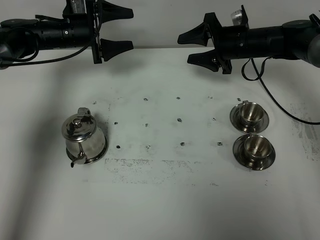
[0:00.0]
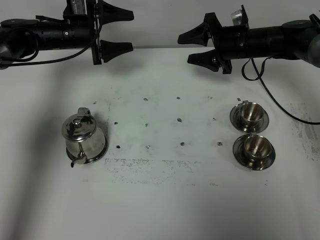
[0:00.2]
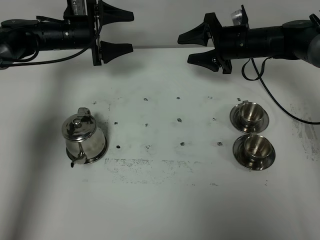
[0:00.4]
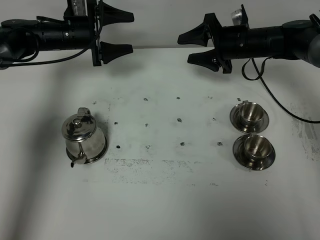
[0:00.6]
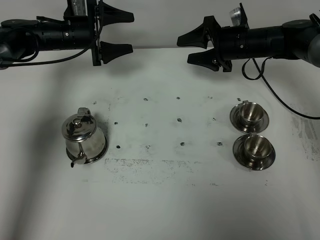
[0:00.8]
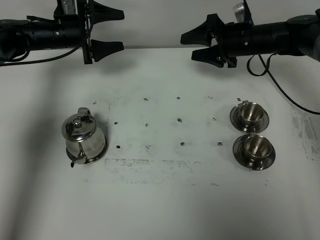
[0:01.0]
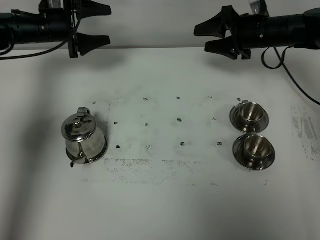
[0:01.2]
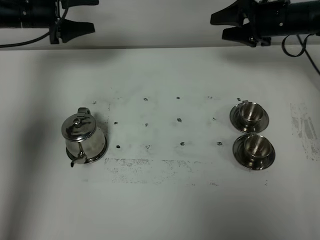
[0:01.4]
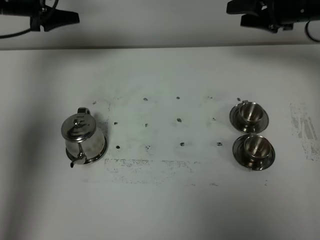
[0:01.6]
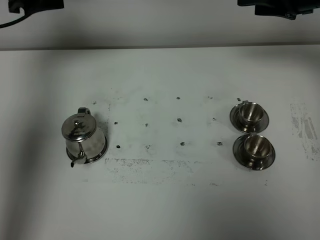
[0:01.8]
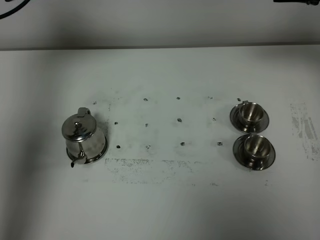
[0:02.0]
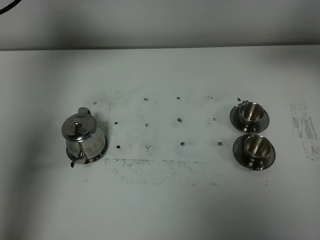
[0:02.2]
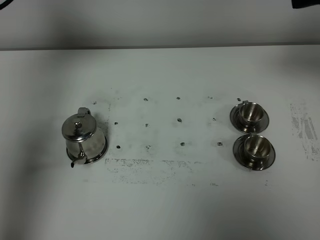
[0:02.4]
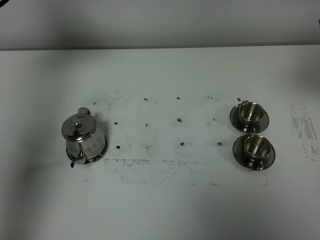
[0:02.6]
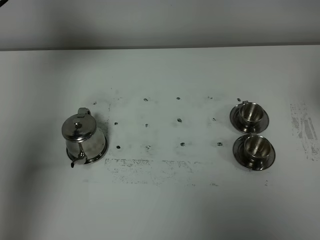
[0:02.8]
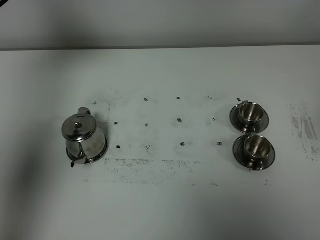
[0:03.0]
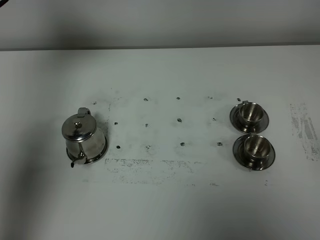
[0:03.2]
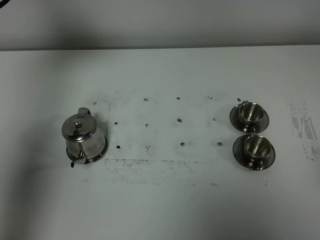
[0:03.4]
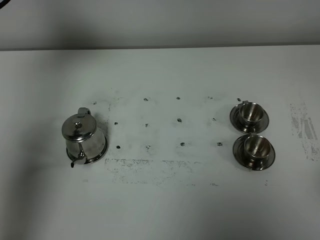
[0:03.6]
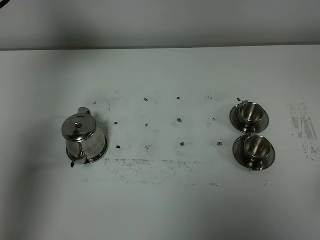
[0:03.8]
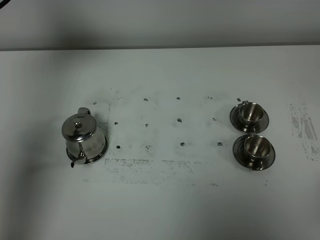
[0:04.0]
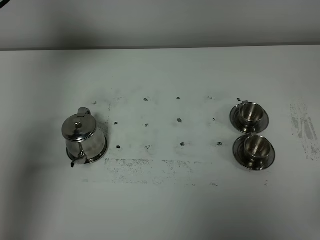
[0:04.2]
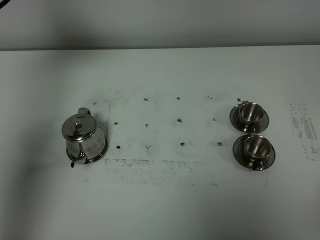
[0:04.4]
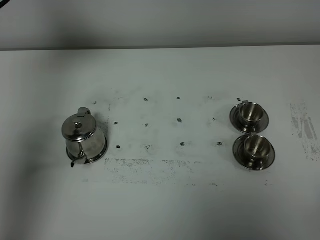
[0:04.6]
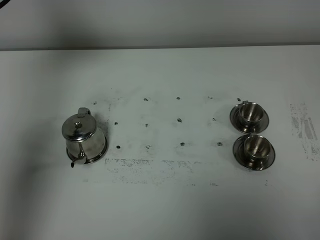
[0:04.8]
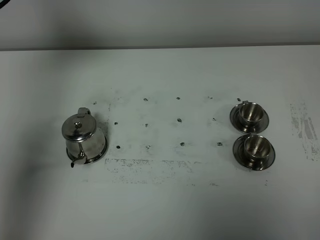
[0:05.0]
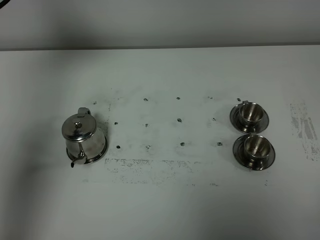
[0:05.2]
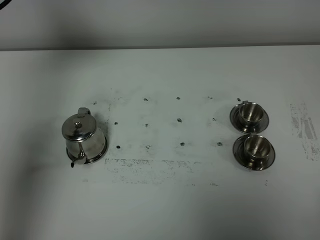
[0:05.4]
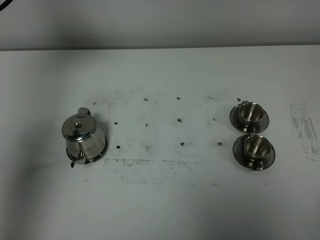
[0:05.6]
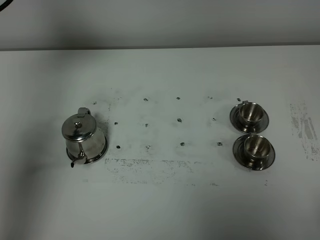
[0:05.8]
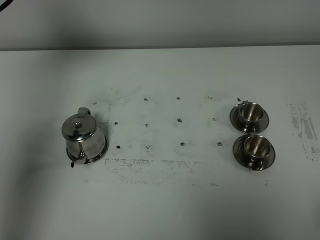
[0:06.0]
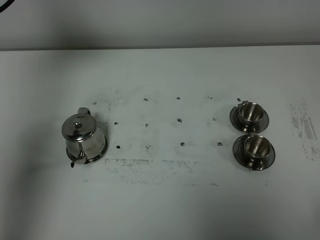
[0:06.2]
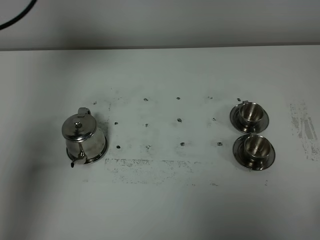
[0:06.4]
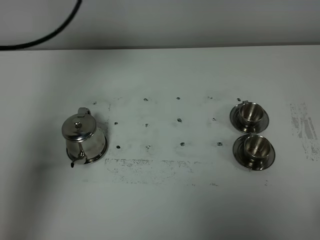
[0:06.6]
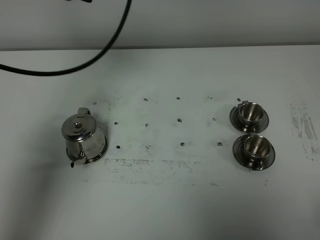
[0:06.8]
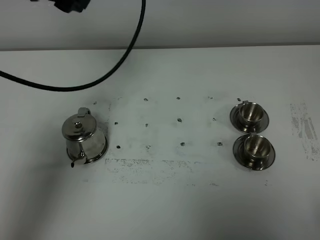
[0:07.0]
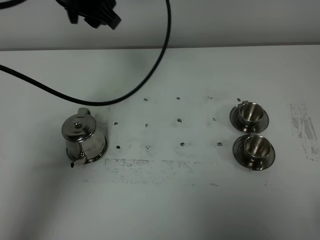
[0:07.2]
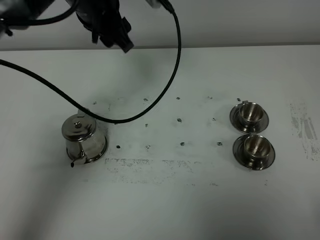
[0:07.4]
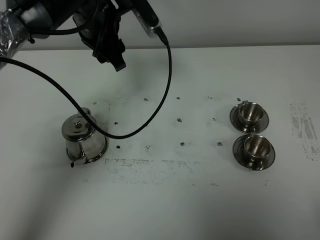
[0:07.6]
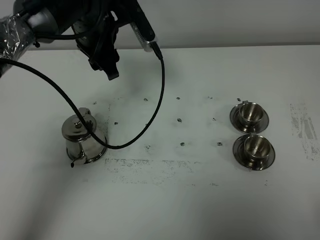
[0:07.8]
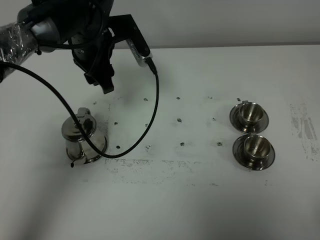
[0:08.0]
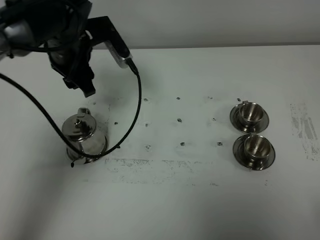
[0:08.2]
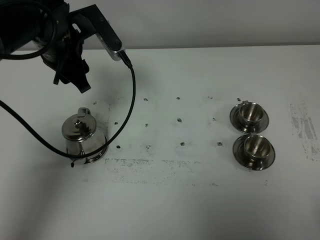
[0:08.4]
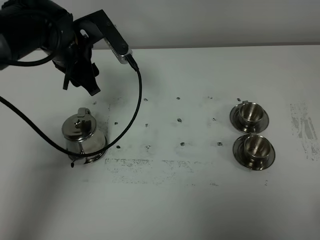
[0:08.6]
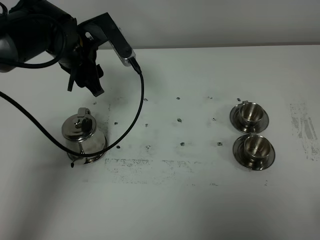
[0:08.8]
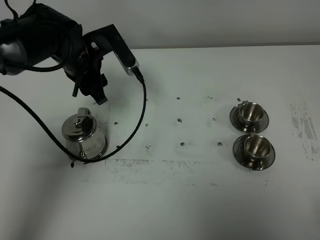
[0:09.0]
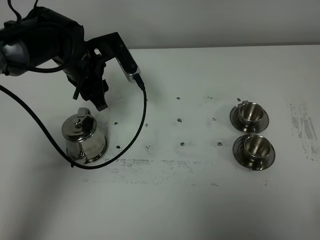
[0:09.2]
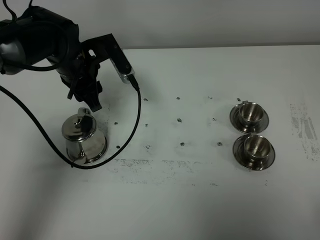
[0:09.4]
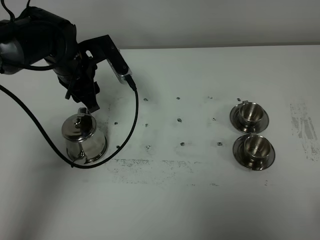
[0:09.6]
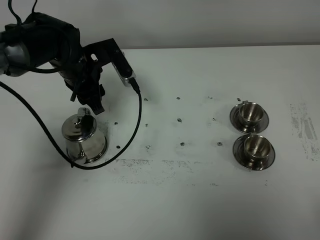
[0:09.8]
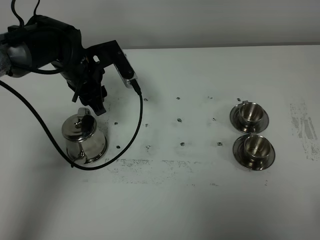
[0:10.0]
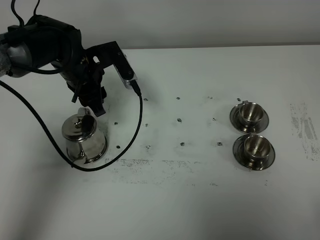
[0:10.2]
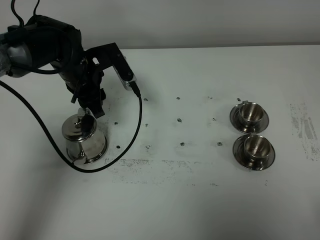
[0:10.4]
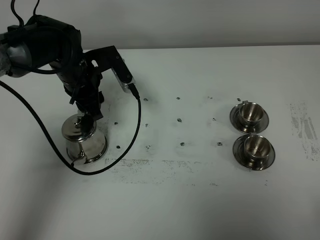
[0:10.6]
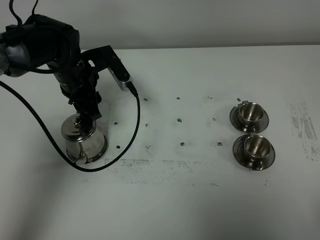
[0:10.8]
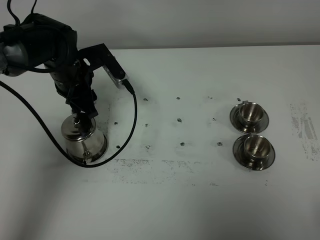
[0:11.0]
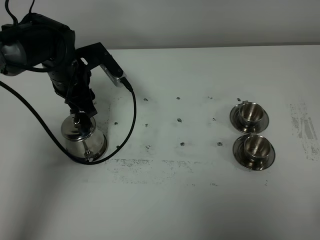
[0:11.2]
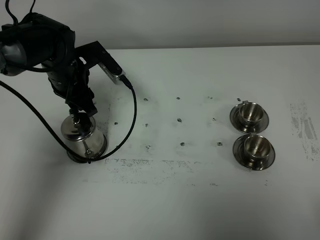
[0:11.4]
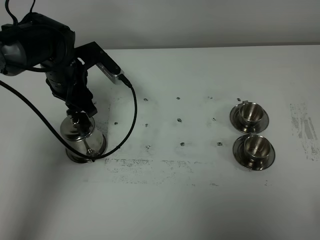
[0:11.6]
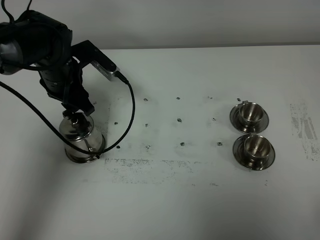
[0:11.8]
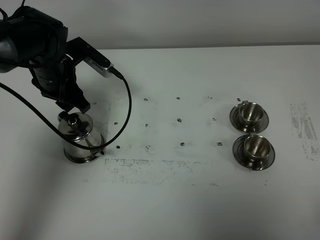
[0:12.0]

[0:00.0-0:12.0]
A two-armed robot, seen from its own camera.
Task of the whole recording: grasp the stainless steel teapot and pour the tea into the two stainless steel teacups one by one, put the stainless steel teapot back in its original place.
0:00.0 to 0:01.6: The left gripper moves upward and to the left, about 15 cm. Meanwhile the right gripper heads upward and to the right, covering some 15 cm.
0:01.6 to 0:03.0: The right gripper moves backward, about 35 cm, while the left gripper travels upward and backward by approximately 20 cm.
0:06.0 to 0:07.6: The left gripper moves to the right and downward, approximately 25 cm.
0:07.6 to 0:09.0: The left gripper heads downward, covering some 5 cm.
0:09.0 to 0:10.4: The grippers stay close to where they were, moving slightly.

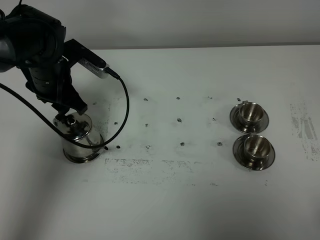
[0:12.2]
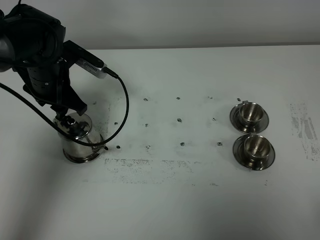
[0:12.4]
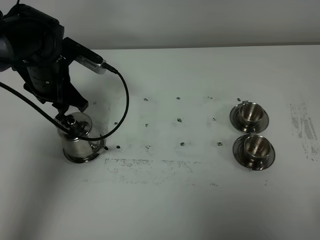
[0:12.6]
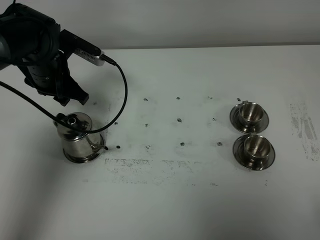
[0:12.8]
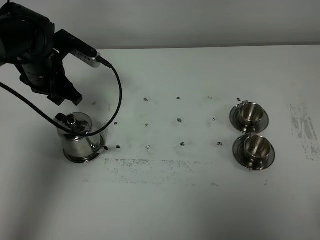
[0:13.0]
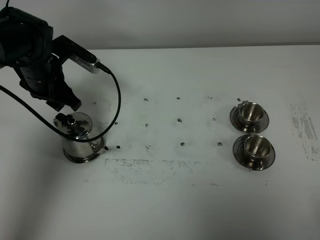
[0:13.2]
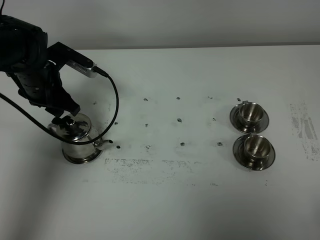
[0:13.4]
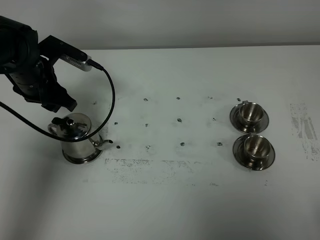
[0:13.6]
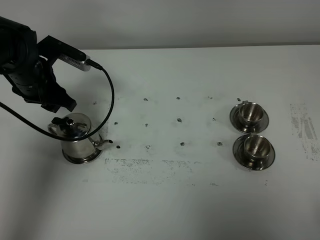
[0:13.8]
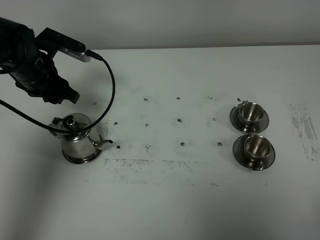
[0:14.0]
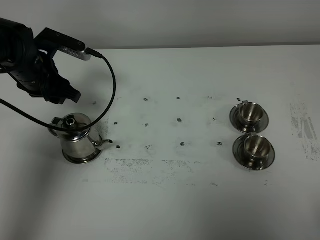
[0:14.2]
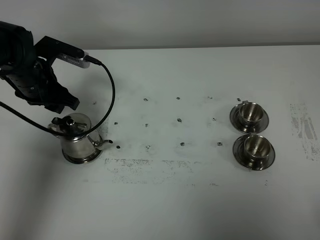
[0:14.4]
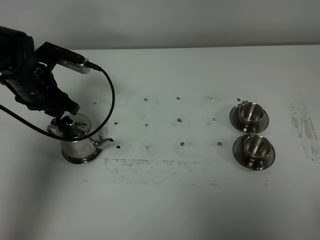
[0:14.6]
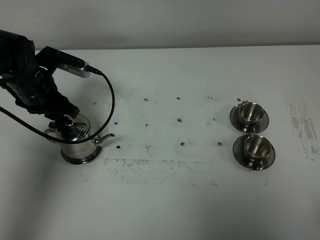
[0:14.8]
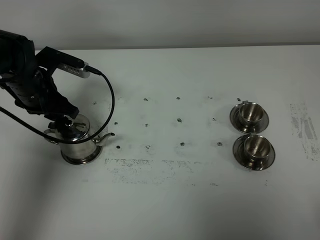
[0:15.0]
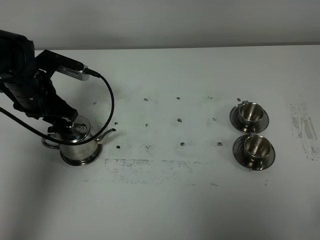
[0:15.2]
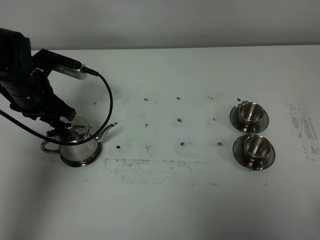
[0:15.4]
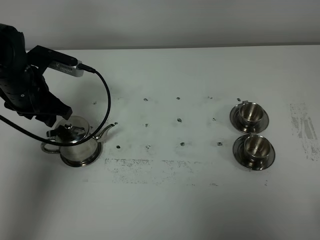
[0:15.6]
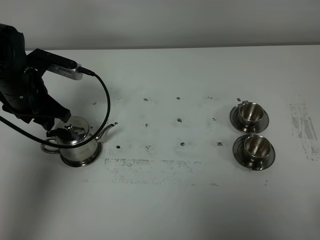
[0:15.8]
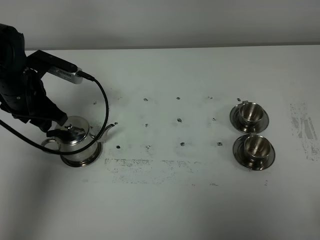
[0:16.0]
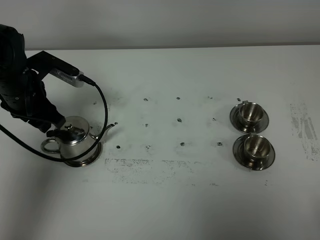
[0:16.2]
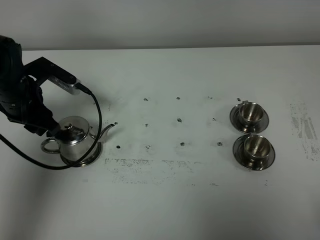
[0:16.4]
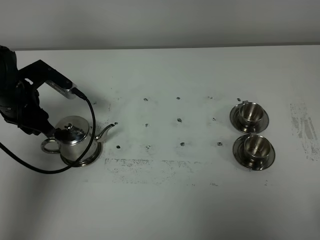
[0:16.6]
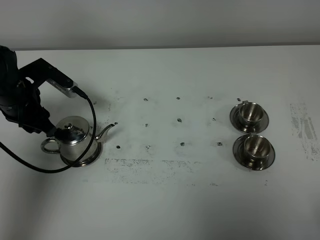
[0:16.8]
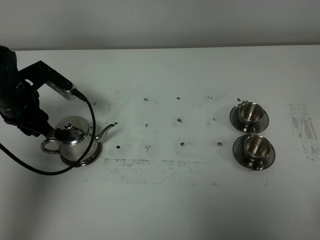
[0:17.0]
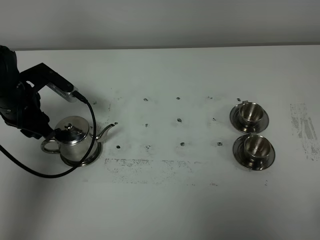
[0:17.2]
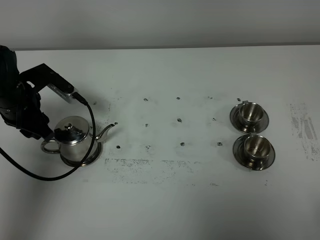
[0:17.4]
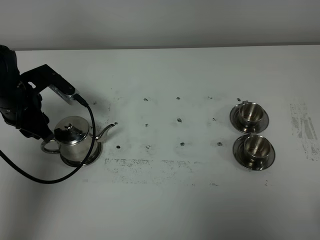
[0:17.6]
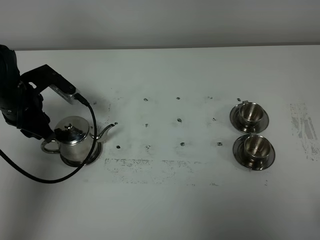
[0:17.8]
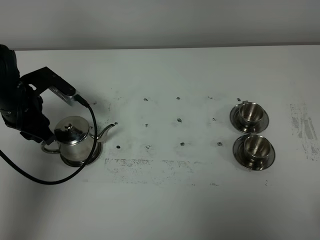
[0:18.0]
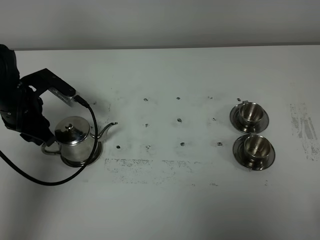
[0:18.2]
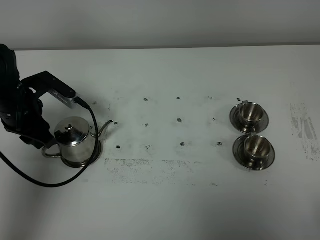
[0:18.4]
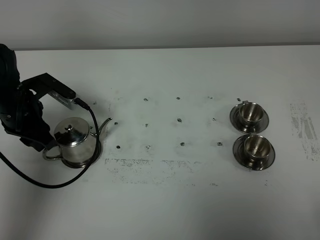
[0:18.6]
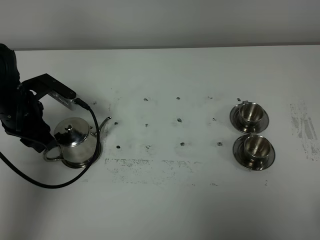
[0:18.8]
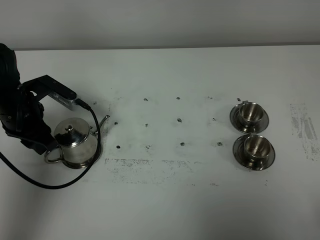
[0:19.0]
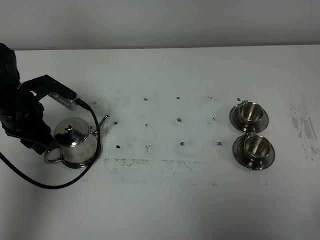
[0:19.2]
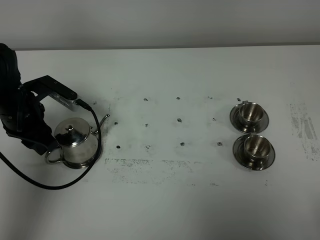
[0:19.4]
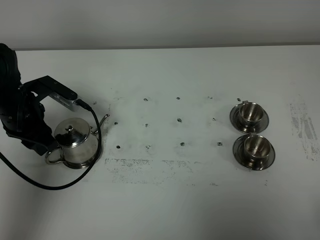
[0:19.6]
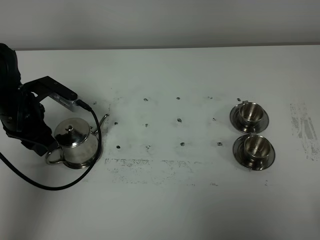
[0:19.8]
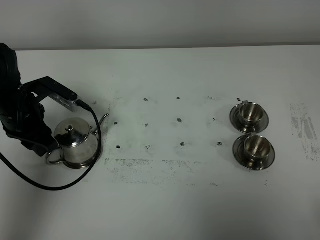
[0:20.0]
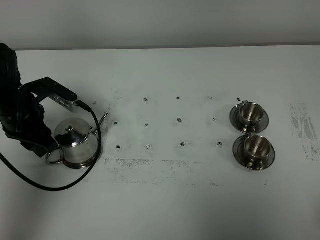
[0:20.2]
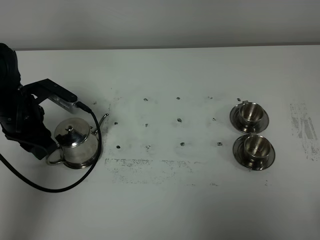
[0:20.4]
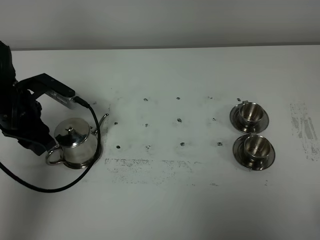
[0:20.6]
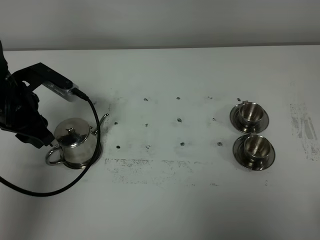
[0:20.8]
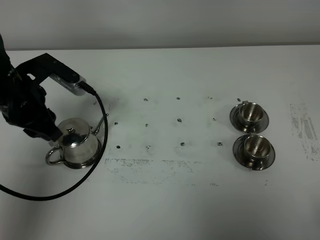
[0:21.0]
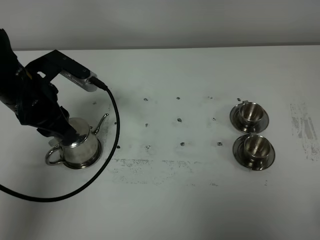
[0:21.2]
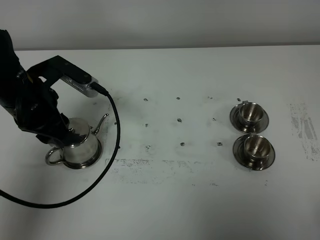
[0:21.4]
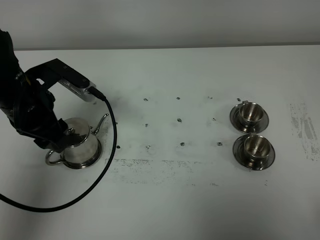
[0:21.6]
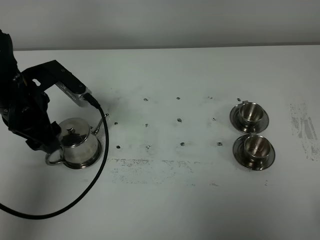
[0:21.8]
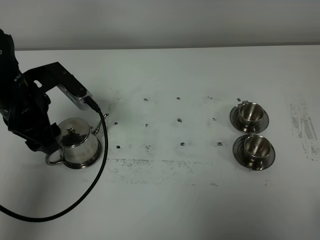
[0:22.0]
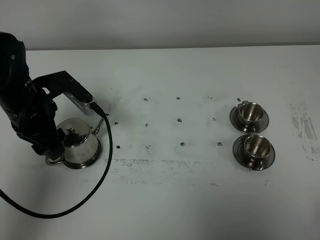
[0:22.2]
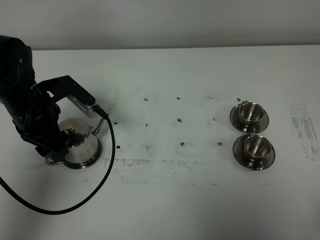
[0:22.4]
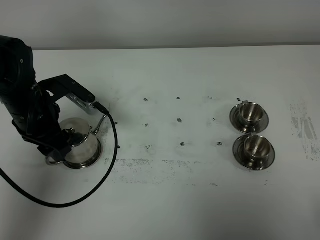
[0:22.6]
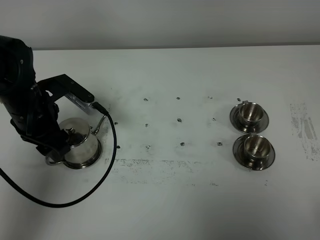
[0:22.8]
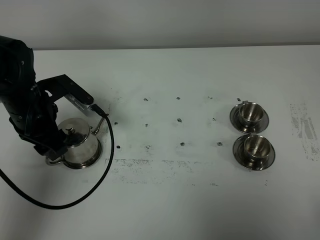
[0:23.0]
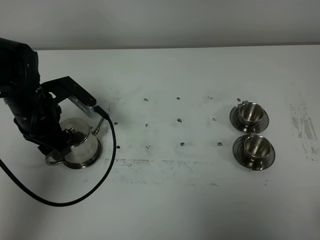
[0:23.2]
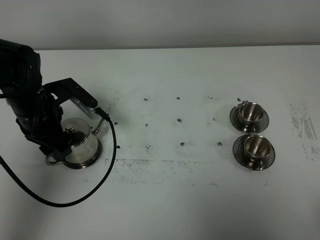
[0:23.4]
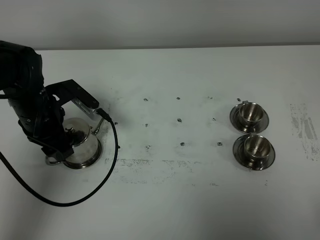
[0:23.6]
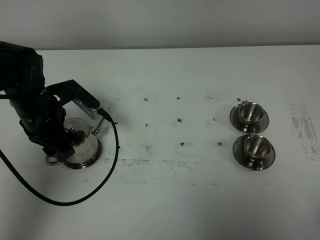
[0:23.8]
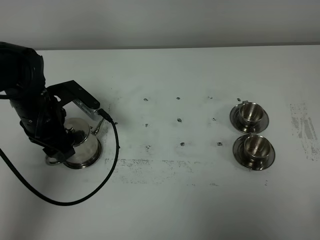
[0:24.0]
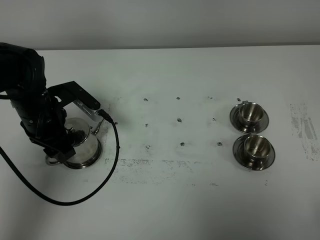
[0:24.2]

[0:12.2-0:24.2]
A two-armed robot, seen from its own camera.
Task of the whole recording: grasp the stainless steel teapot and pour the tea into the two stainless steel teacups one by one, put the stainless steel teapot back in its original place.
0:12.2 to 0:15.2: The grippers make only small movements.
0:15.2 to 0:16.6: The grippers move only a little.
0:16.6 to 0:19.8: The grippers make only small movements.
0:19.8 to 0:21.2: The left gripper is displaced upward by about 5 cm.
0:21.2 to 0:22.6: The left gripper opens its fingers.
0:22.6 to 0:24.2: The grippers stay close to where they were, moving slightly.
